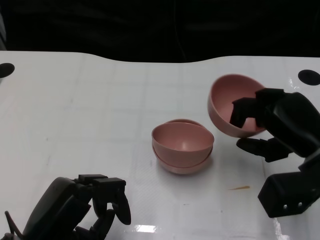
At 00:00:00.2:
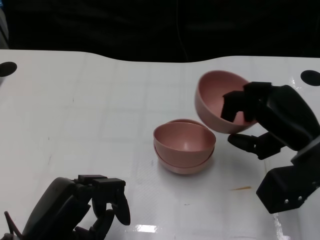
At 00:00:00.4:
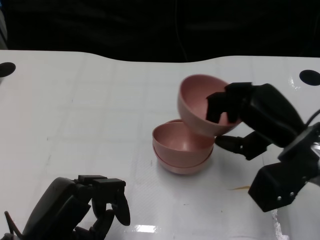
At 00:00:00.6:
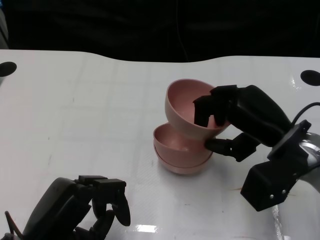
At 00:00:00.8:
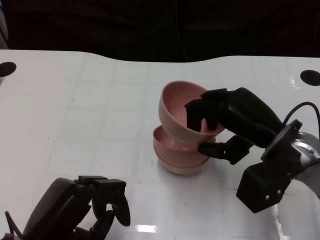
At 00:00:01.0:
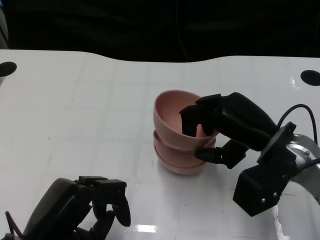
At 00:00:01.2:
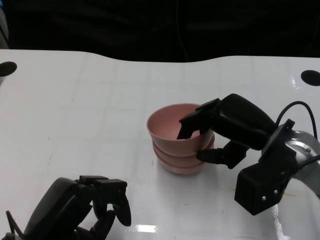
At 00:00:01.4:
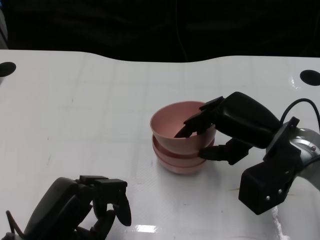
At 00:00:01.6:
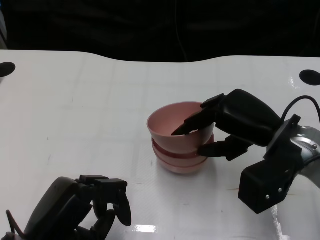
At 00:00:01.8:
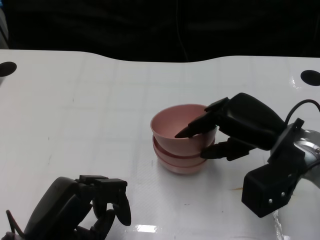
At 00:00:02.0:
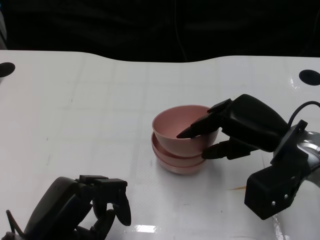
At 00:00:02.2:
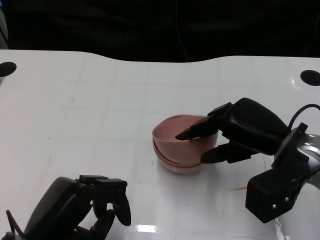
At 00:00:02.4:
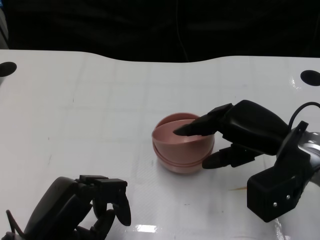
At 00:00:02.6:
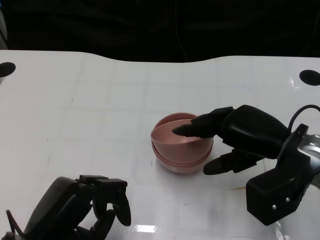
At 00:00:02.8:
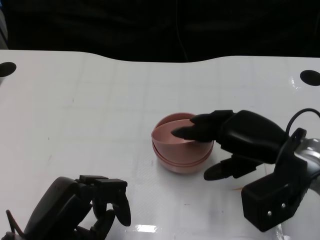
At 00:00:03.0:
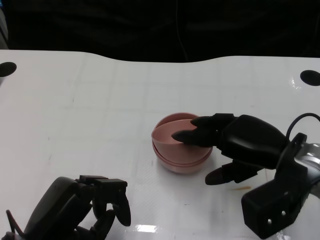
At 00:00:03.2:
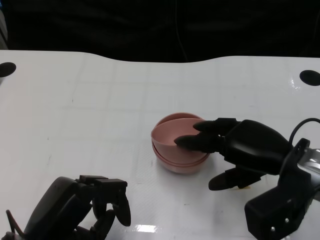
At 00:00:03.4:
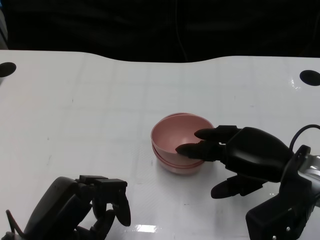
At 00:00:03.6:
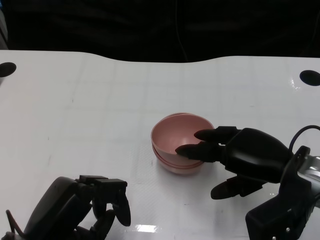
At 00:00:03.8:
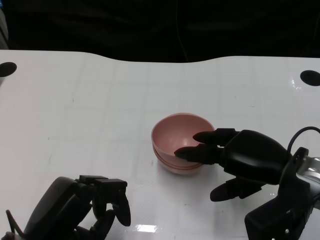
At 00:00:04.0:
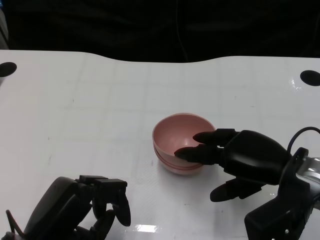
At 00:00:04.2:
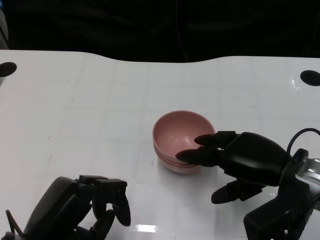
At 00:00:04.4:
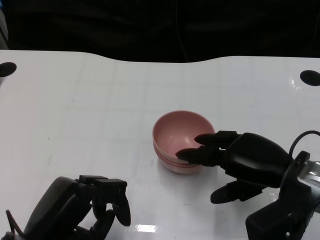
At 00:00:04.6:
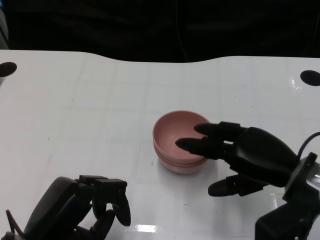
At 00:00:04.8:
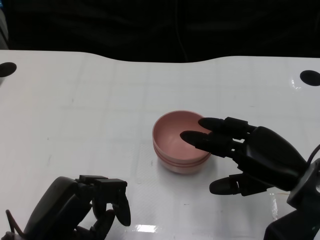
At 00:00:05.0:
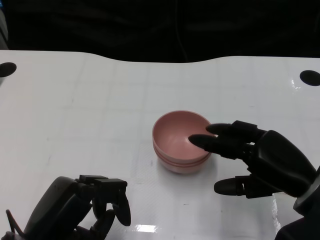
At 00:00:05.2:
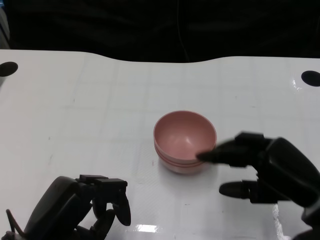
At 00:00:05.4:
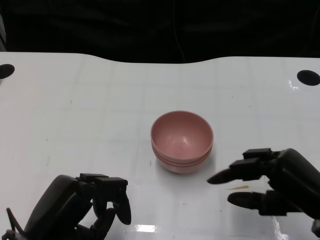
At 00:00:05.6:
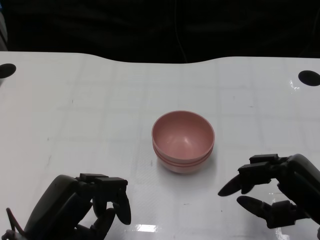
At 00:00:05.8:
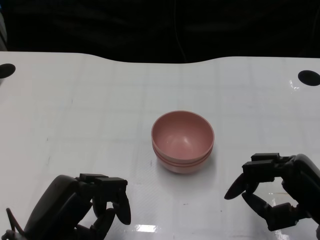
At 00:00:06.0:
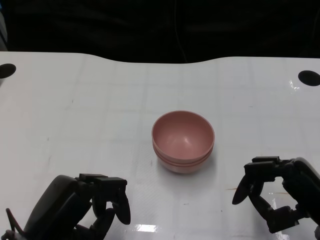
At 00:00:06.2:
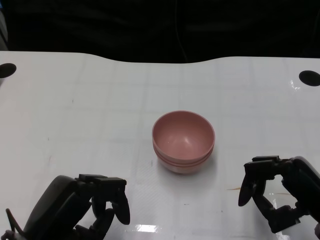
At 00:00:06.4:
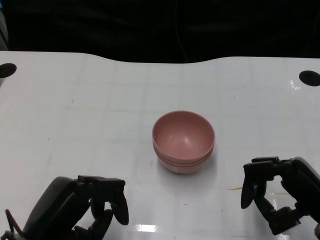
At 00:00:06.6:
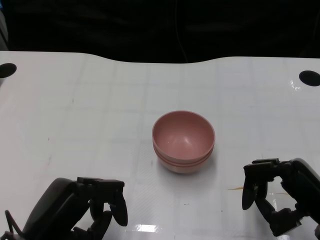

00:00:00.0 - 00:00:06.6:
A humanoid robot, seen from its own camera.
Task of the whole recording: Pick up the bowl on one side of the table and place it on top of the middle bowl, then pick up the bowl on the other side of the table and place it on top of the middle bowls.
Step, 00:00:00.0 - 00:00:04.4: Place the bowl on the right onto the bowl in the middle with right gripper.
00:00:00.0 - 00:00:01.6: The right hand is displaced to the left by approximately 5 cm.
00:00:01.6 - 00:00:03.2: There are only small adjustments of the hands.
00:00:05.0 - 00:00:06.6: The right hand ends up approximately 5 cm from where it was.

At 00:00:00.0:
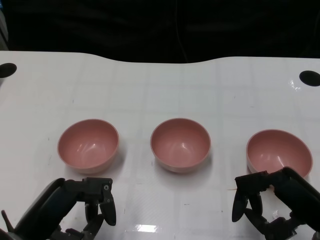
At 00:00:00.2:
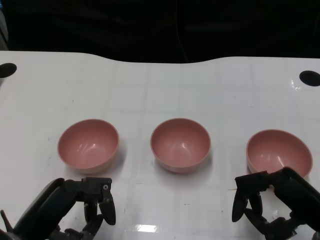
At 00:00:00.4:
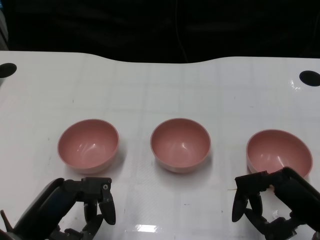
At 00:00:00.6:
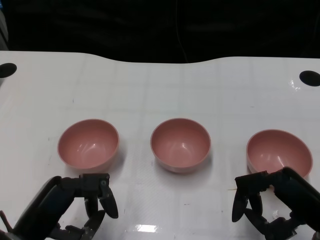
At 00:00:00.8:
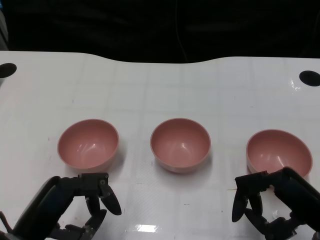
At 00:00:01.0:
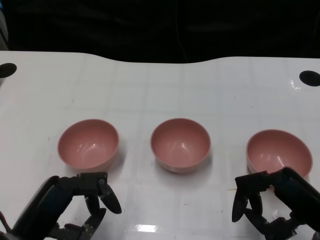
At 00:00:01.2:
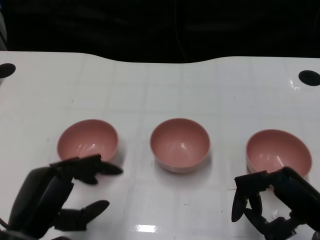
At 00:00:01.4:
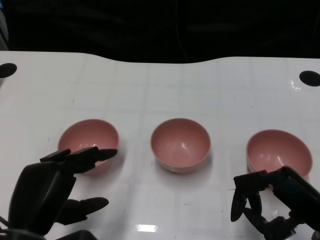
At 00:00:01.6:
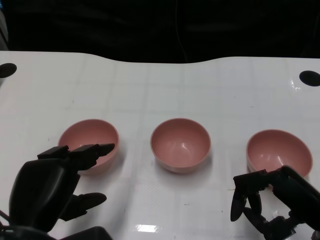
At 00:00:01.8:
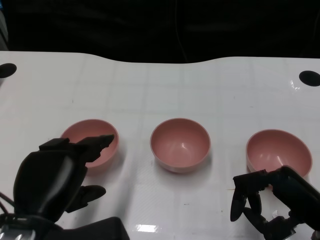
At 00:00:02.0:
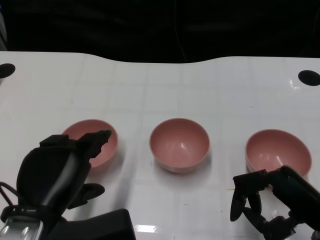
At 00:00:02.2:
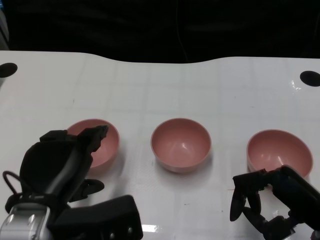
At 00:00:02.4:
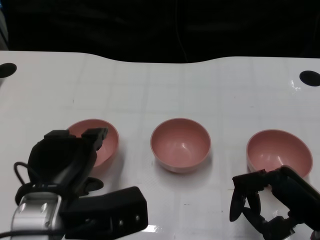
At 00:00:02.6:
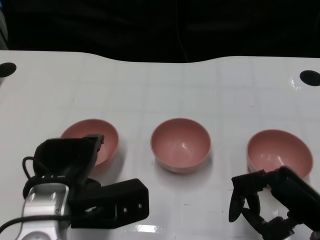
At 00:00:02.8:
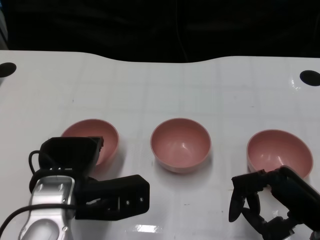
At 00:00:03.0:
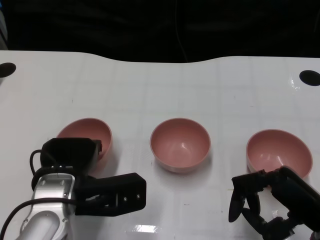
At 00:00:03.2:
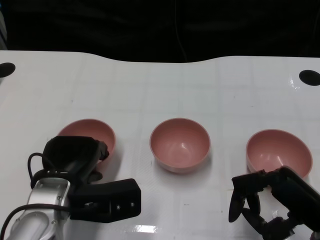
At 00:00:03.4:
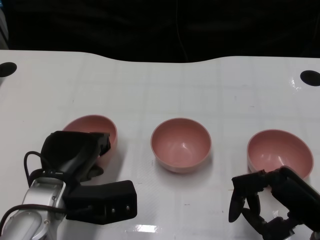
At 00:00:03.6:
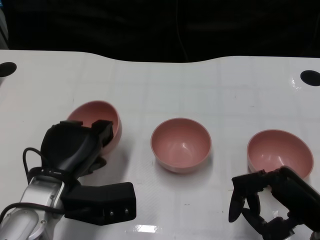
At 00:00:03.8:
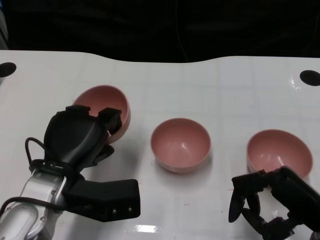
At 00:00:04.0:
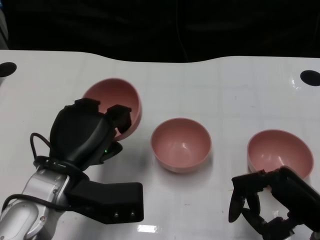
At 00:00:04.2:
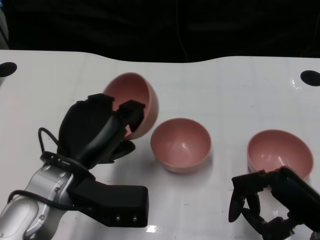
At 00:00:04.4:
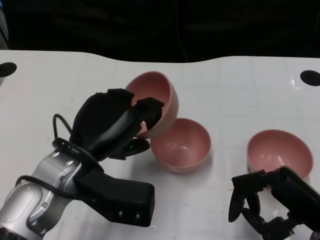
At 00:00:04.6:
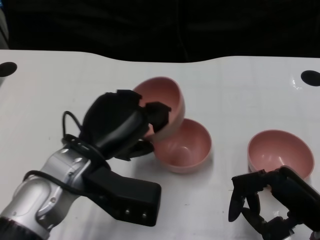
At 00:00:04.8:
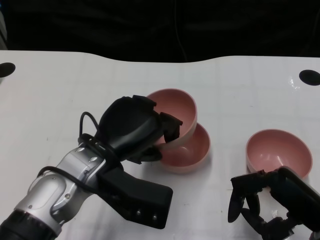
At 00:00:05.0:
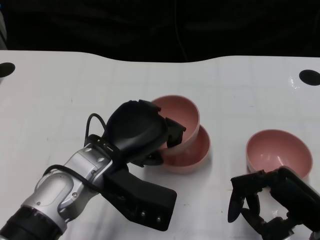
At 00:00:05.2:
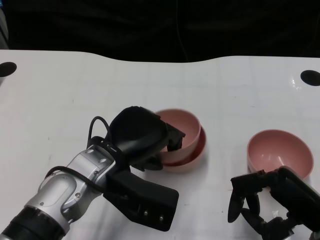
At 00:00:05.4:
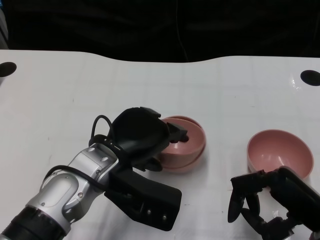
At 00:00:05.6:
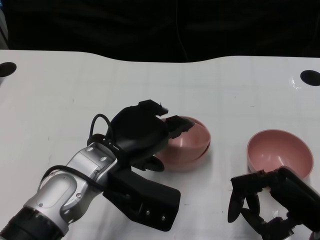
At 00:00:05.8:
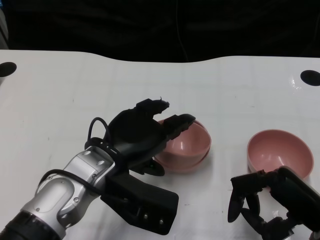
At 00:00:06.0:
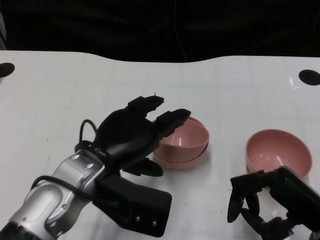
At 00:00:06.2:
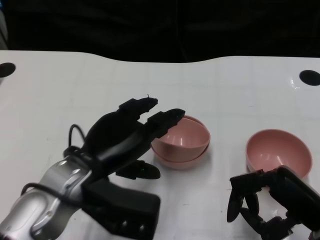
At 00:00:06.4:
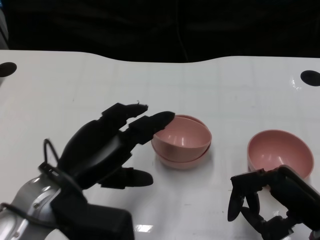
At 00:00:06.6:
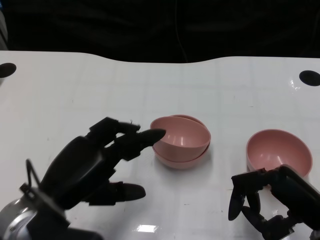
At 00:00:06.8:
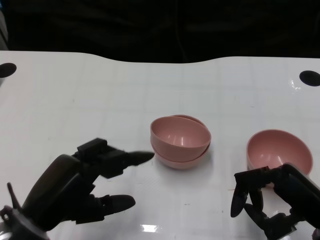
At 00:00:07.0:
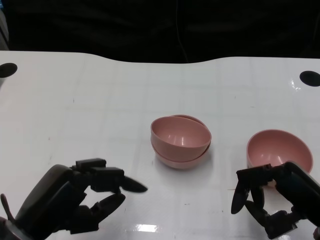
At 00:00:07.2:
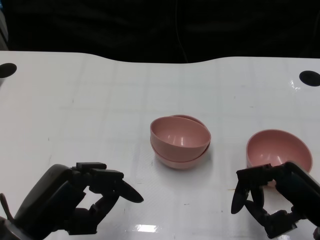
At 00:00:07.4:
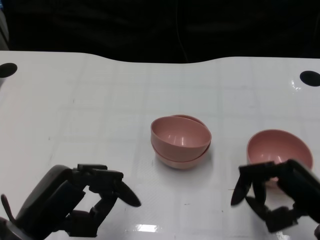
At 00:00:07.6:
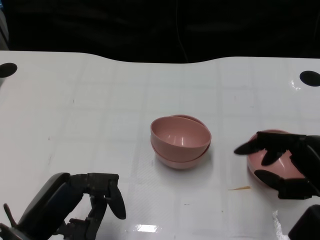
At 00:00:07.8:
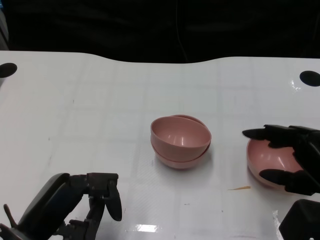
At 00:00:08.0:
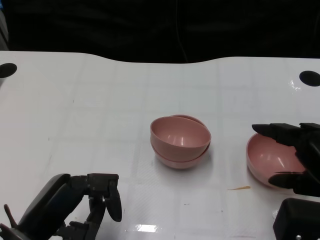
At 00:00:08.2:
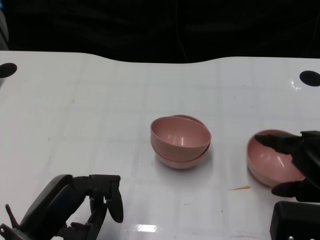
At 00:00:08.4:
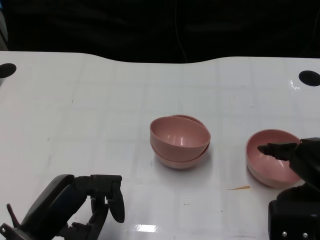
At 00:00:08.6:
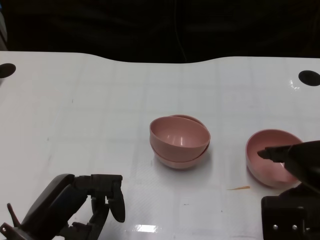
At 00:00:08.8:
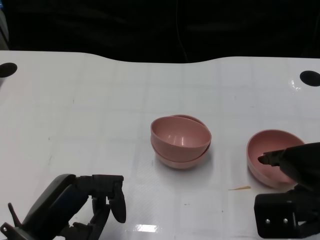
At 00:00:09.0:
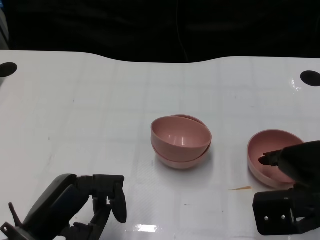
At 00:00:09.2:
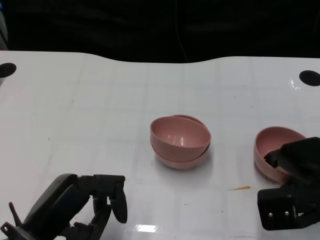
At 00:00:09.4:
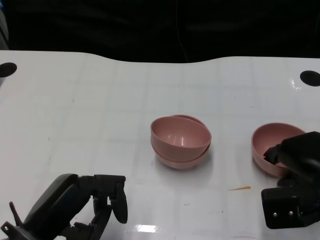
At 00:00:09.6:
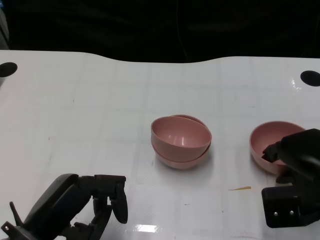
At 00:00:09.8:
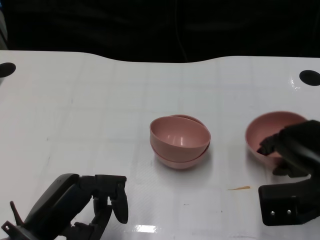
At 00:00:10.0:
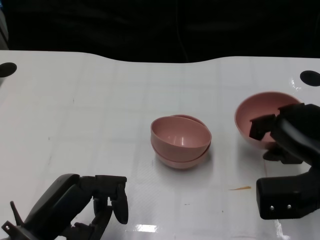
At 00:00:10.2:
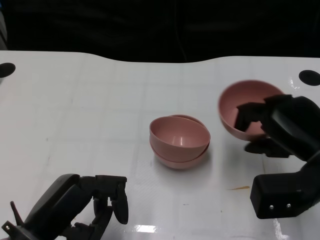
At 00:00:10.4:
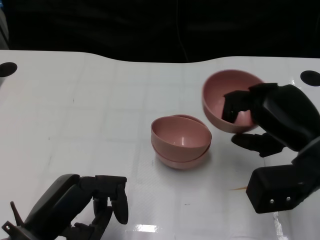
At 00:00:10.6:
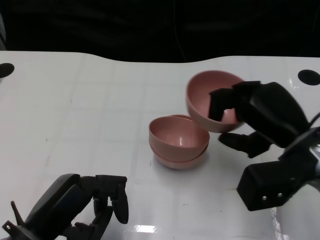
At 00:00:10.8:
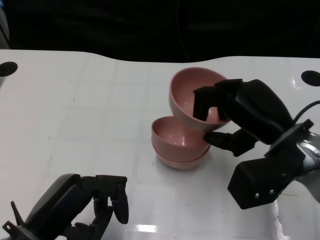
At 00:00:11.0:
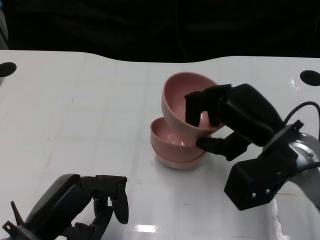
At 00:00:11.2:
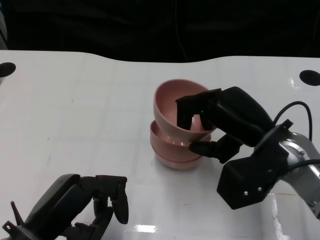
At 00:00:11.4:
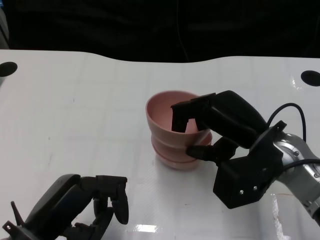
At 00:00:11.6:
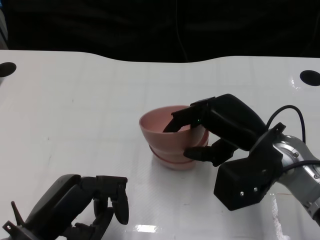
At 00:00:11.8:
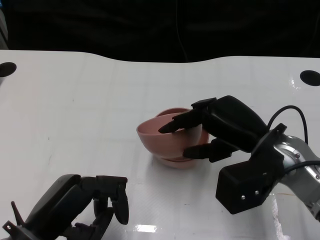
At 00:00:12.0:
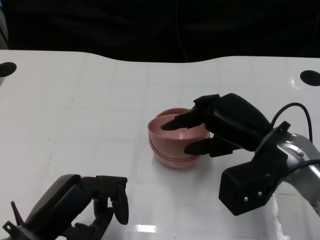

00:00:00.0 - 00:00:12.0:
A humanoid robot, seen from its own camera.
Task of the whole recording: Pick up the bowl on one side of the table and place it on top of the middle bowl, then pick up the bowl on the other side of the table and place it on top of the middle bowls.
Step, 00:00:00.8 - 00:00:03.4: Grasp the bowl on the left with the left gripper.
Step, 00:00:03.6 - 00:00:06.0: Place the bowl on the left onto the bowl in the middle with left gripper.
Step, 00:00:06.2 - 00:00:09.8: Grasp the bowl on the right with the right gripper.
00:00:01.6 - 00:00:03.0: The left hand shifts about 10 cm forward.
00:00:03.0 - 00:00:04.4: The left hand changes place by roughly 5 cm.
00:00:06.0 - 00:00:07.6: The left hand travels to the left and backward by roughly 15 cm.
00:00:10.4 - 00:00:12.0: The right hand moves to the left, some 5 cm.

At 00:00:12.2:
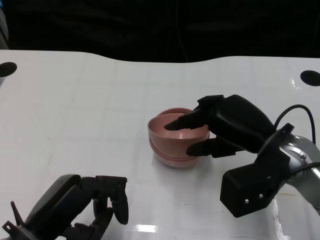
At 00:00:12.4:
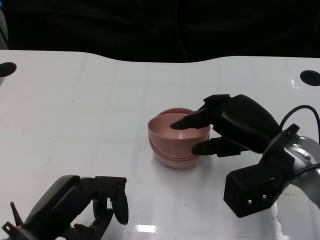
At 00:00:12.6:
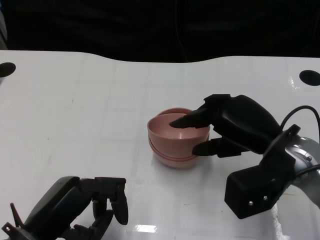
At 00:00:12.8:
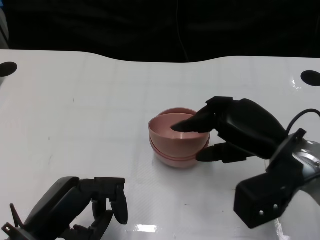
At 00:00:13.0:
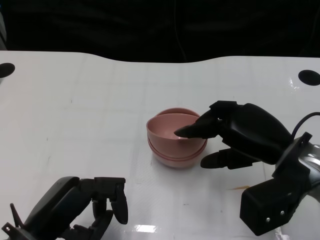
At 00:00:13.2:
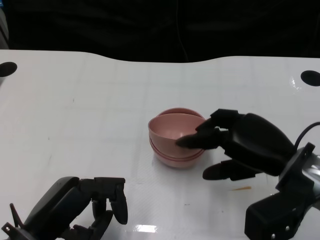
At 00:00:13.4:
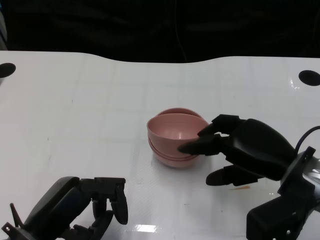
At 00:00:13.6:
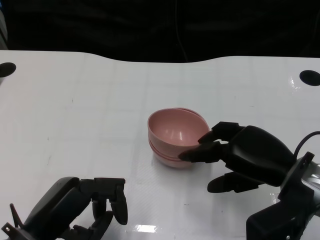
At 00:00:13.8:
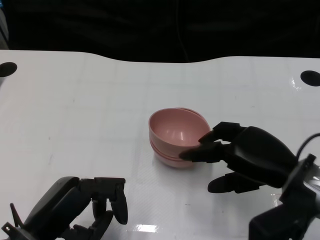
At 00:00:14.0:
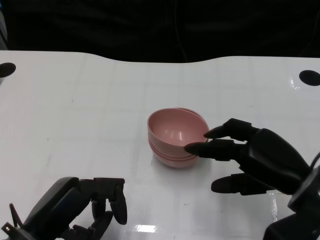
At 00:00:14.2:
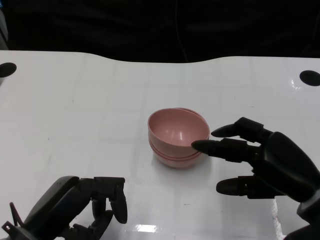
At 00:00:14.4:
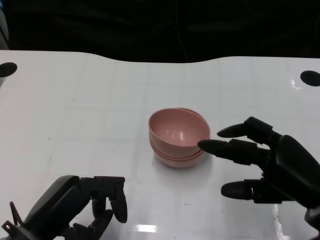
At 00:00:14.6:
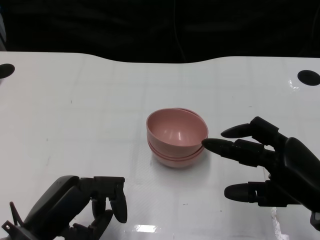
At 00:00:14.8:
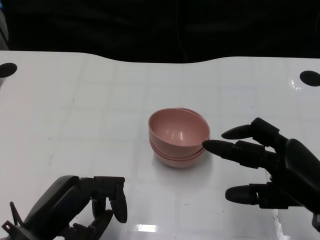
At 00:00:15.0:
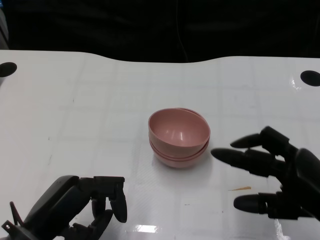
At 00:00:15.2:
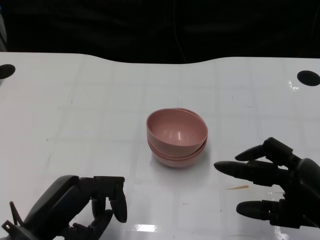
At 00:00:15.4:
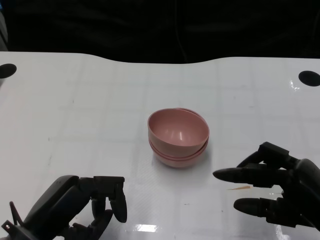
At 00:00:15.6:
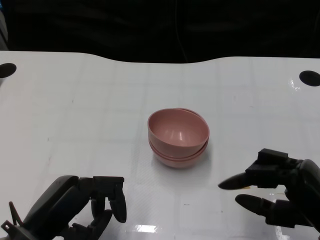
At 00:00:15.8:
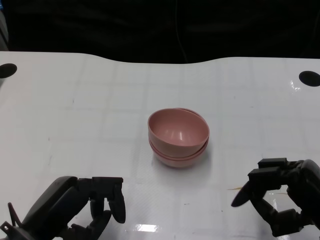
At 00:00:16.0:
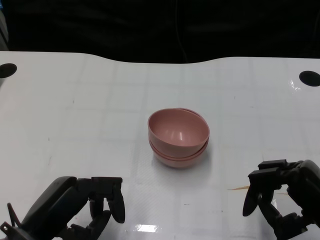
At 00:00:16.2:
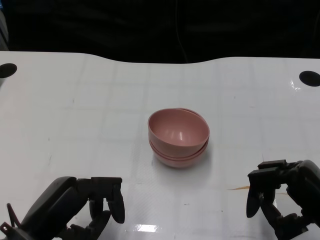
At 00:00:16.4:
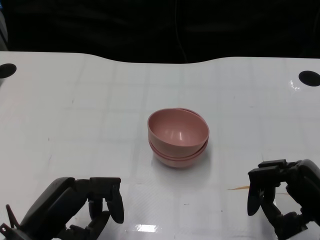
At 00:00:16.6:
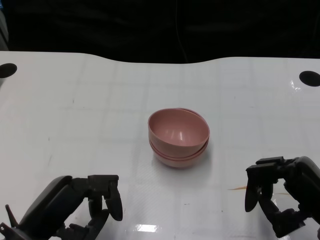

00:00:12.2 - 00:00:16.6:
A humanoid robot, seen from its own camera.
Task of the whole recording: Pick up the bowl on one side of the table and place it on top of the middle bowl, then pick up the bowl on the other side of the table and place it on top of the middle bowls.
00:00:12.2 - 00:00:13.6: The hands stay close to where they were, moving slightly.
00:00:13.6 - 00:00:15.2: The right hand is displaced backward and to the right by some 10 cm.
00:00:15.2 - 00:00:16.6: The hands stay close to where they were, moving slightly.
